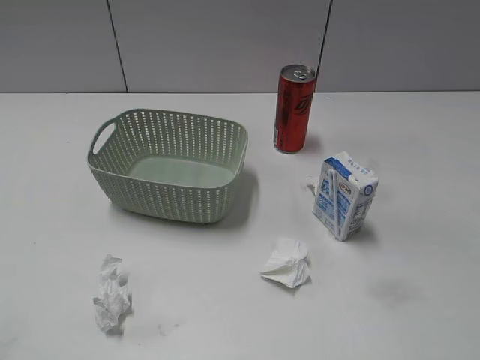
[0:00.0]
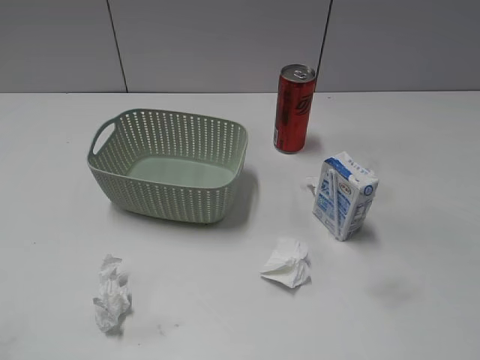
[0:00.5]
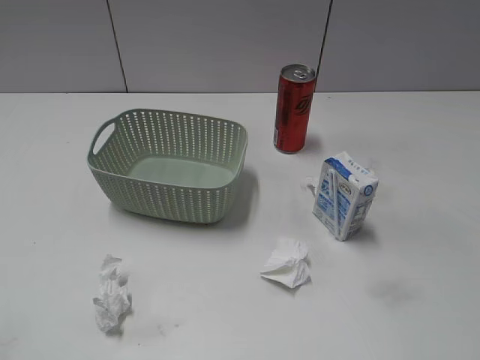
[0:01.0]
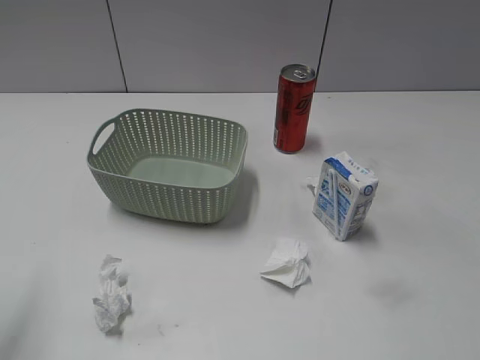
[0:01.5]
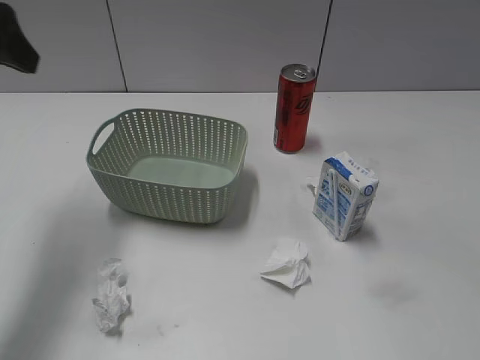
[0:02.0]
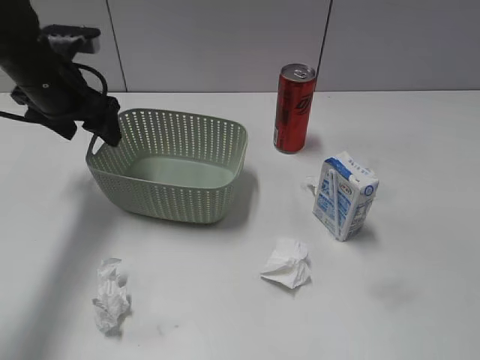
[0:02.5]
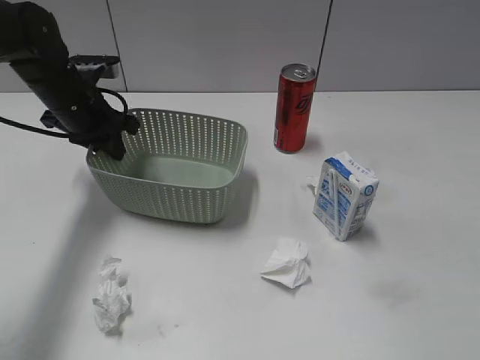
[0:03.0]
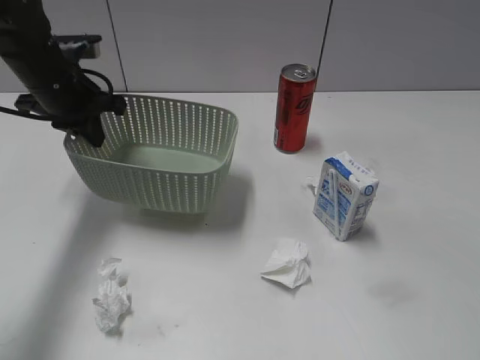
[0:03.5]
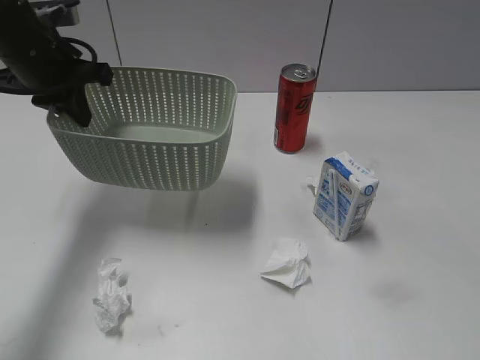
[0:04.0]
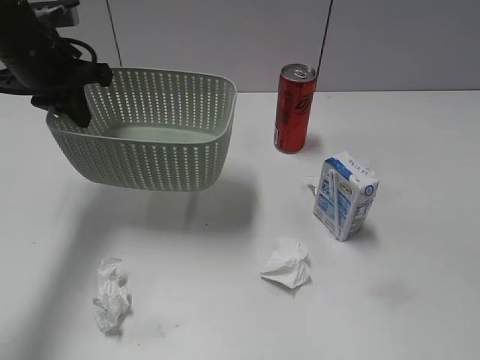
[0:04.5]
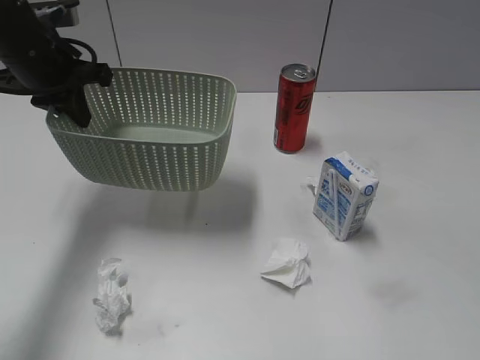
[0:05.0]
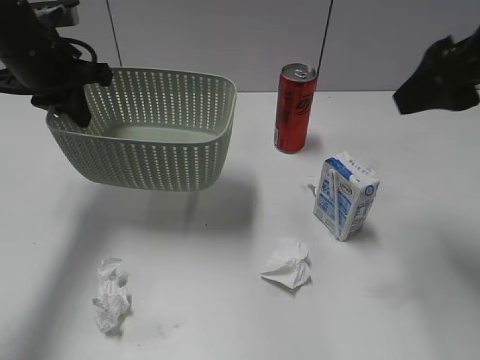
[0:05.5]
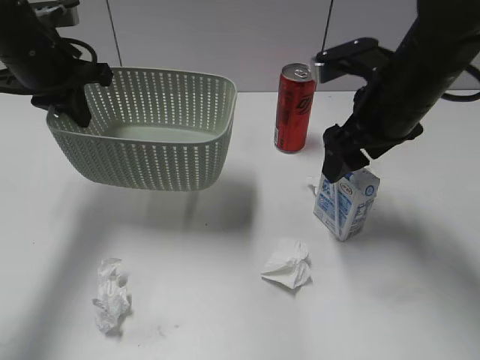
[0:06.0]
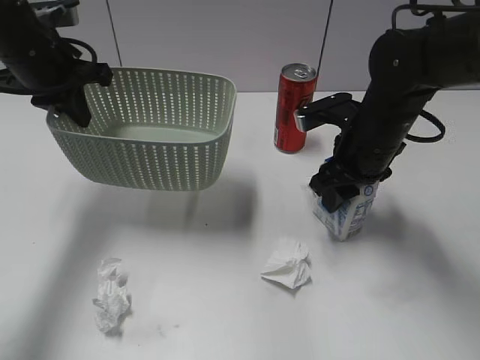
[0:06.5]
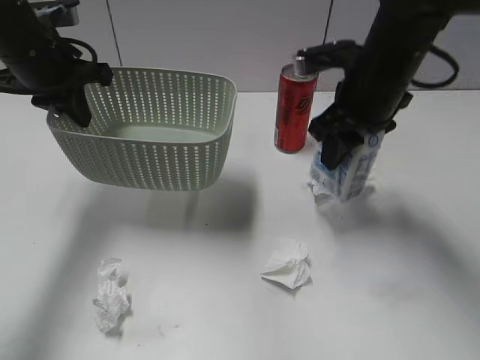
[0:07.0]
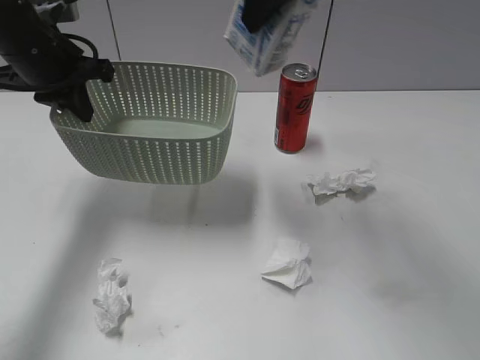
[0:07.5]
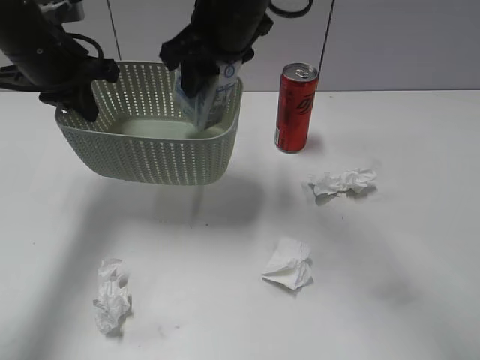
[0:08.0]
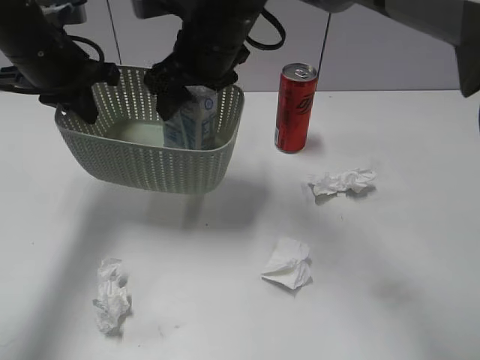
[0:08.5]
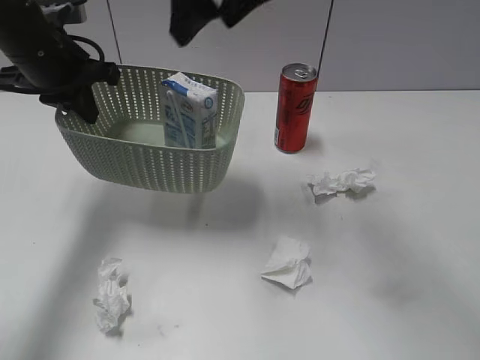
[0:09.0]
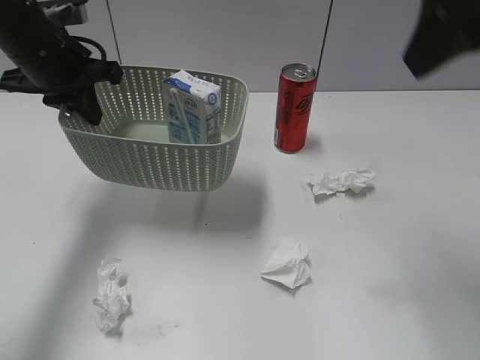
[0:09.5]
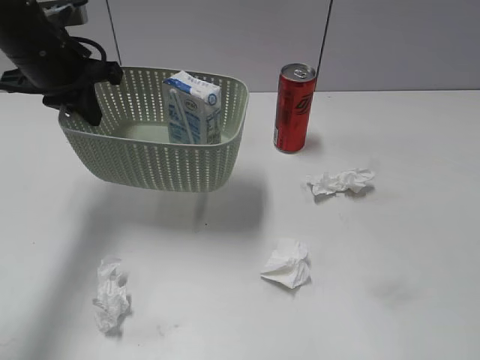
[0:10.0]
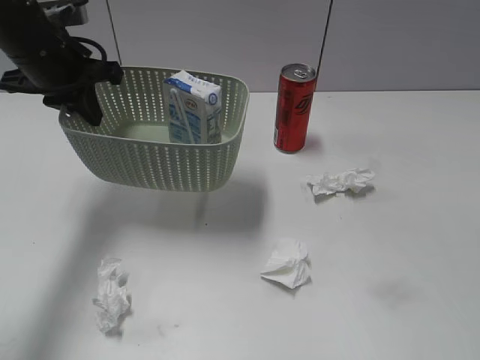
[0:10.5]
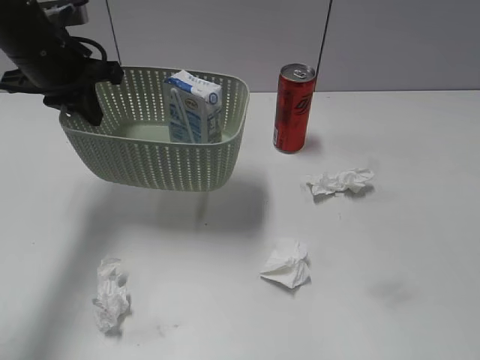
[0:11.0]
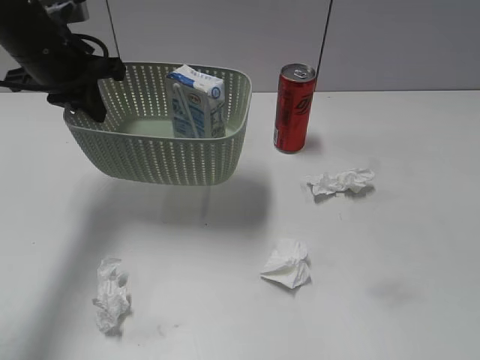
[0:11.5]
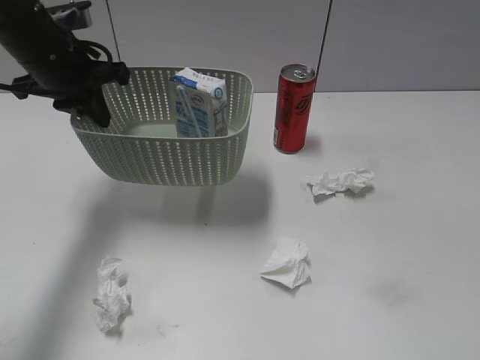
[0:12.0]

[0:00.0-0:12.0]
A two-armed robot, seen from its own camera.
Step, 0:02.0 to 0:03.0: Grasp the basket with left gripper.
Step, 0:04.0 to 0:06.5: Grasp the milk with right gripper.
Step, 0:07.0 to 0:09.0: Place the milk in the basket with right gripper.
0:02.0 to 0:04.0: The left gripper is displaced forward, downward and to the right by approximately 15 cm, and closes up.
0:04.0 to 0:06.0: The right gripper moves forward and to the left, roughly 35 cm.
0:06.0 to 0:08.0: The right gripper moves up and down over some 20 cm, changing direction 2 times, and closes.
0:08.0 to 0:10.0: The right gripper is displaced backward and to the right by approximately 40 cm, and opens up.
0:10.0 to 0:12.0: The right gripper shifts about 10 cm backward and to the right.

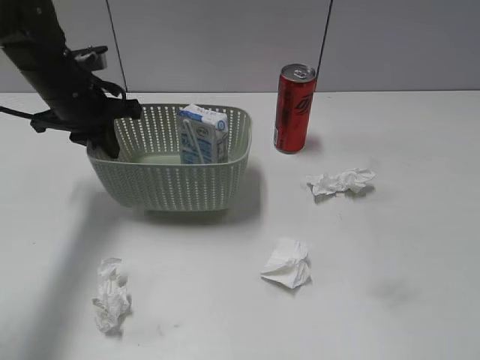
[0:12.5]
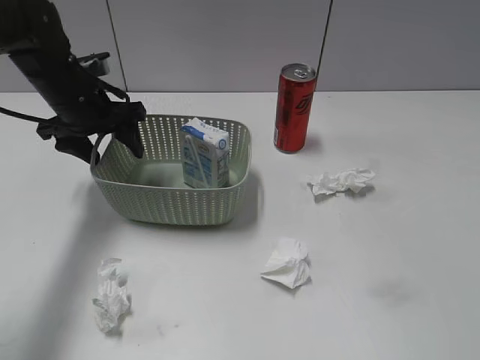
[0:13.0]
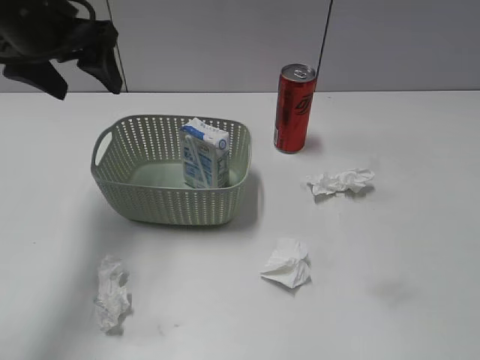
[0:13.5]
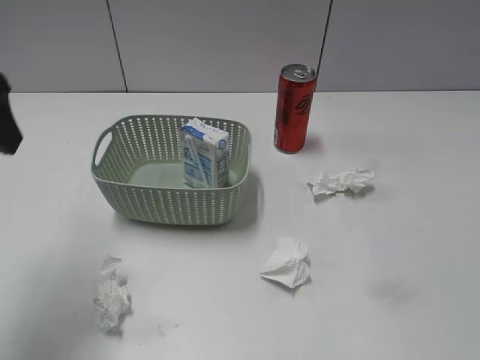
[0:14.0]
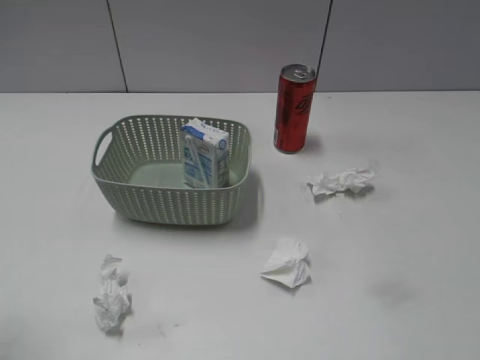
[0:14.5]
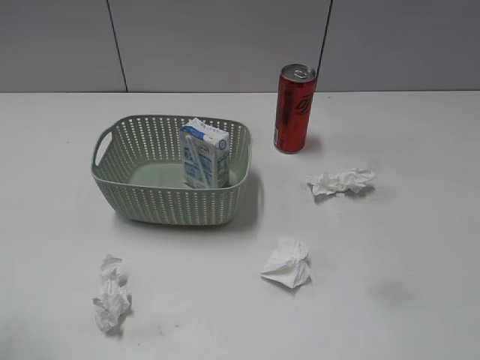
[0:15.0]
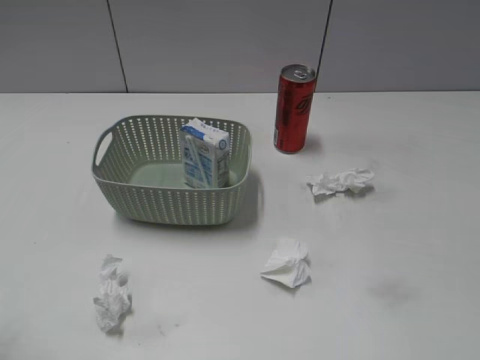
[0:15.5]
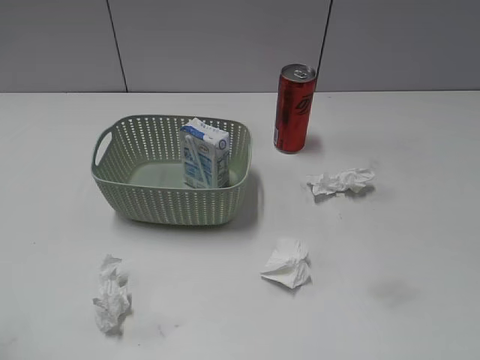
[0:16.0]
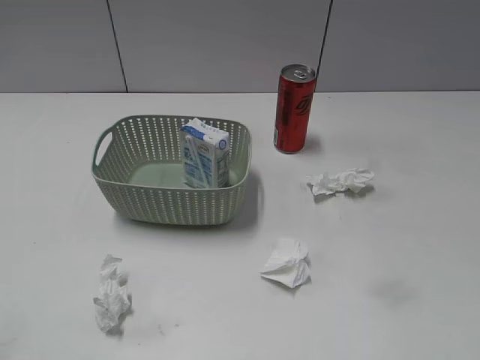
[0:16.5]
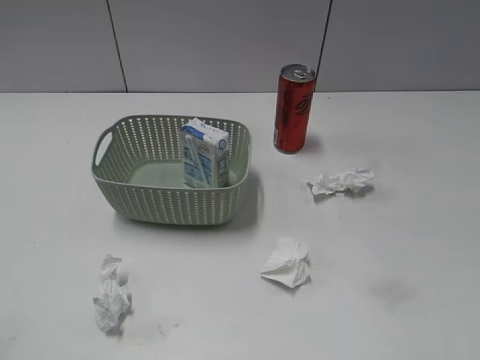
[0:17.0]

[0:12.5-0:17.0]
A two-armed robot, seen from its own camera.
0:12.5 to 0:14.5: The left gripper moves backward, roughly 30 cm, and opens up.

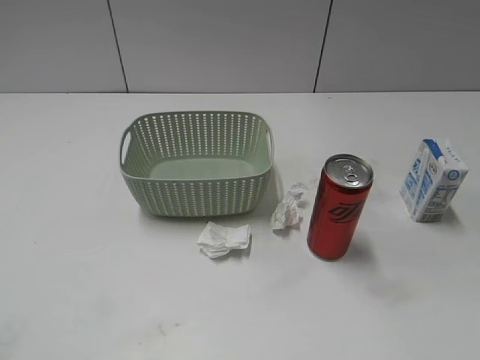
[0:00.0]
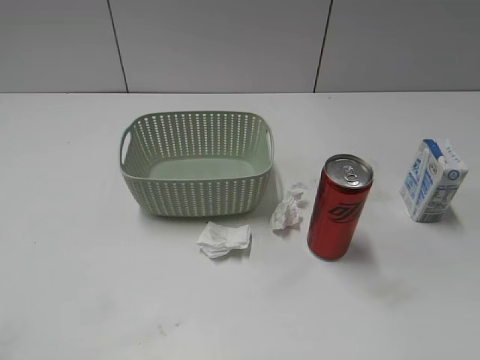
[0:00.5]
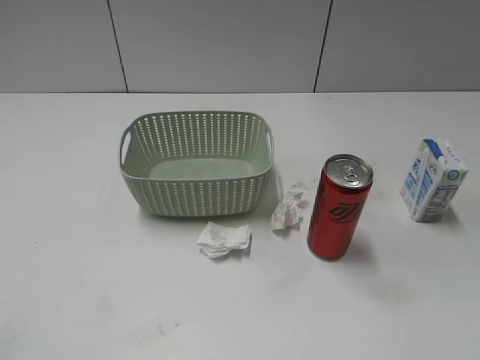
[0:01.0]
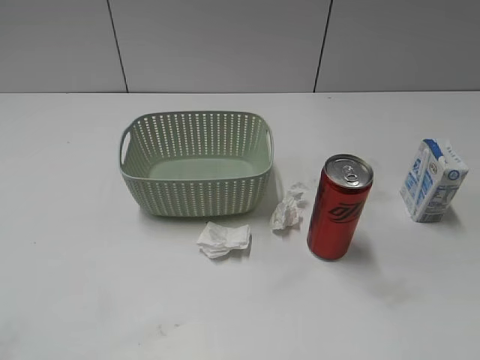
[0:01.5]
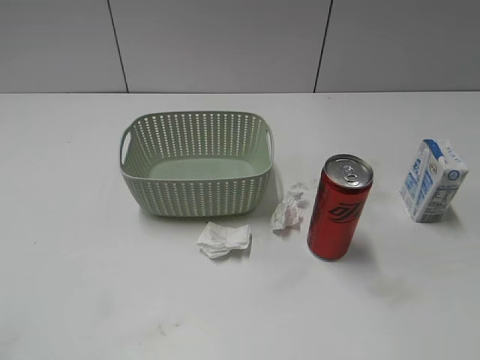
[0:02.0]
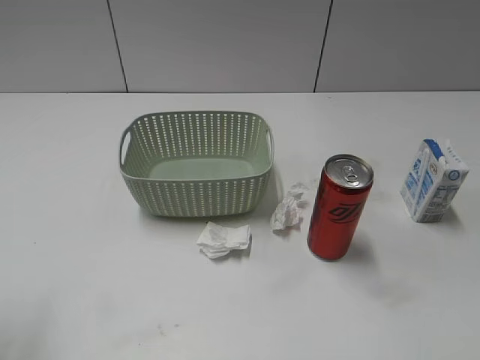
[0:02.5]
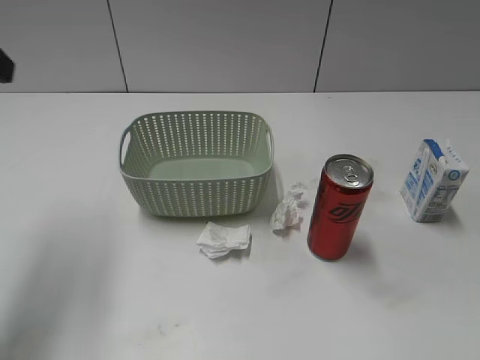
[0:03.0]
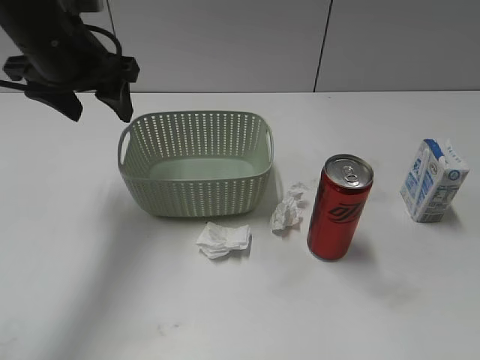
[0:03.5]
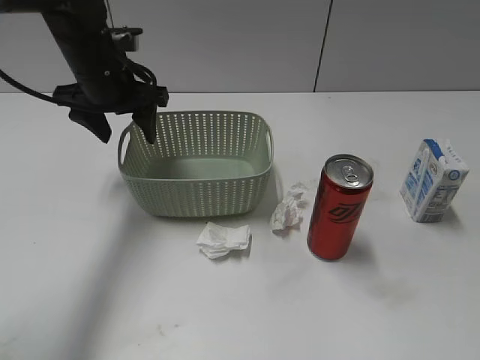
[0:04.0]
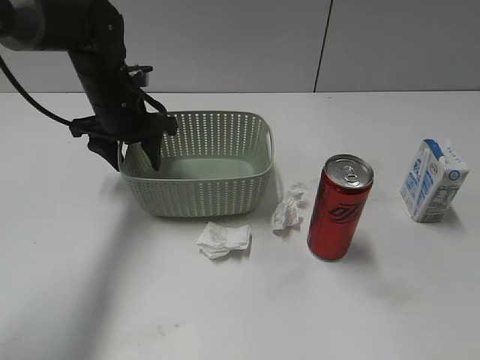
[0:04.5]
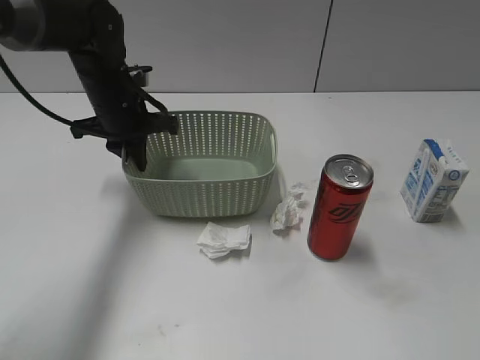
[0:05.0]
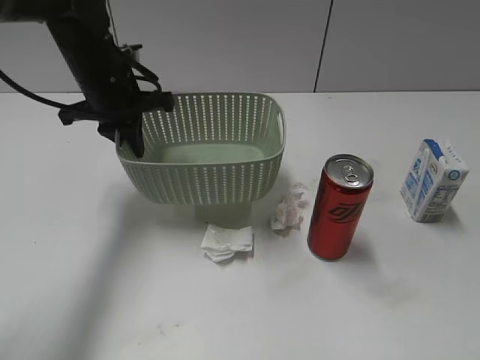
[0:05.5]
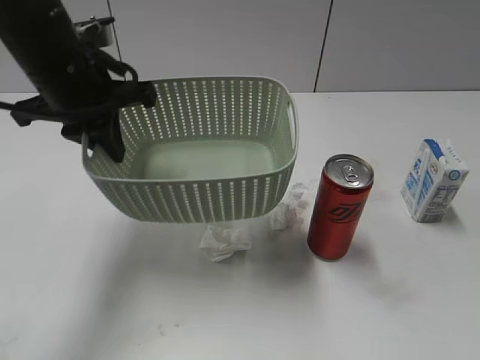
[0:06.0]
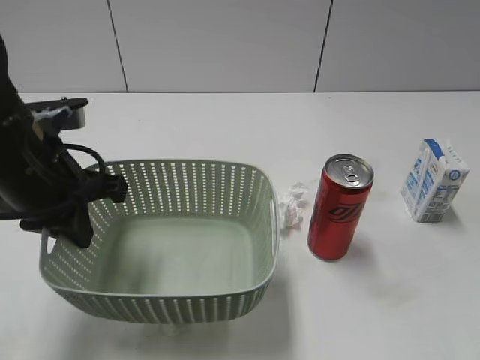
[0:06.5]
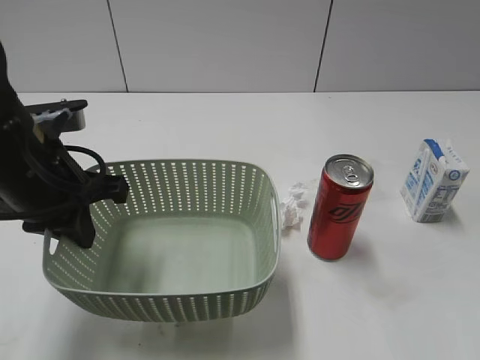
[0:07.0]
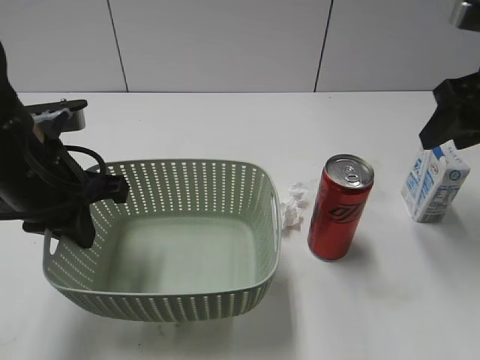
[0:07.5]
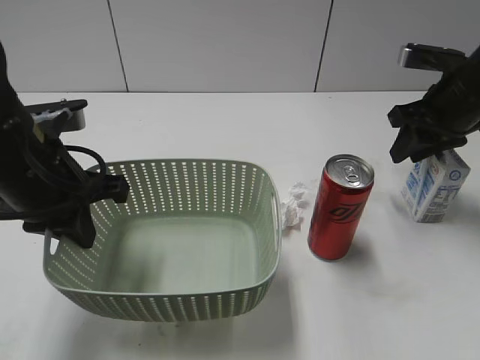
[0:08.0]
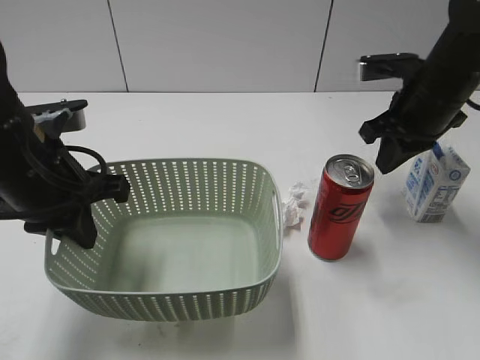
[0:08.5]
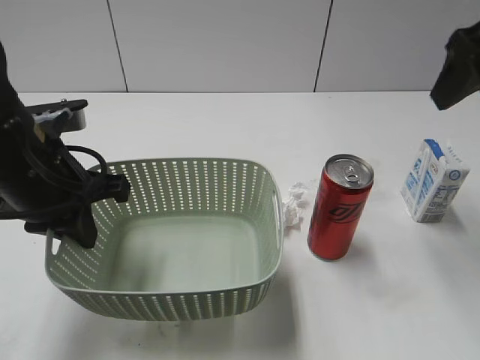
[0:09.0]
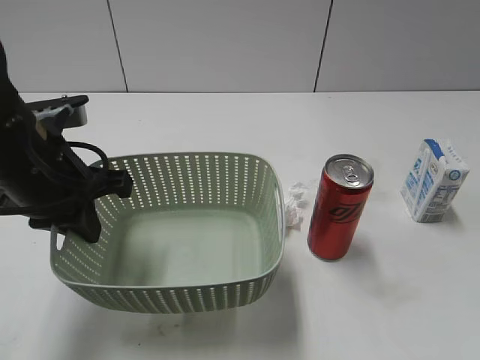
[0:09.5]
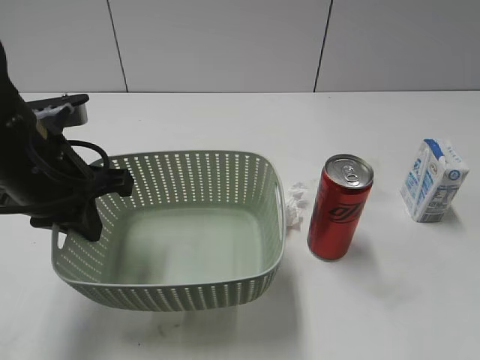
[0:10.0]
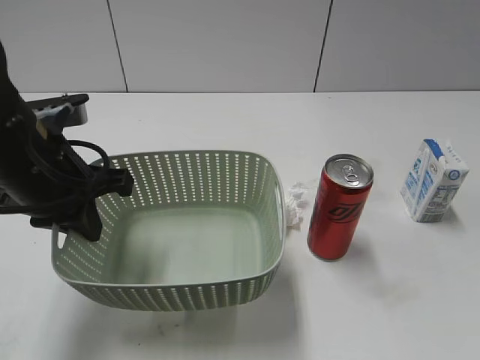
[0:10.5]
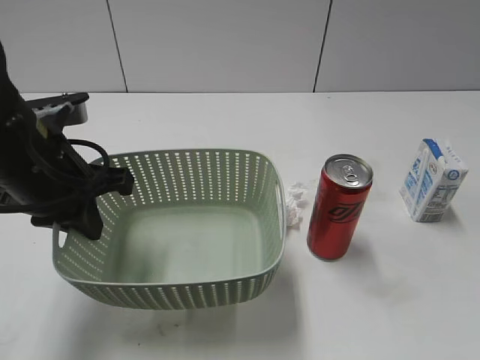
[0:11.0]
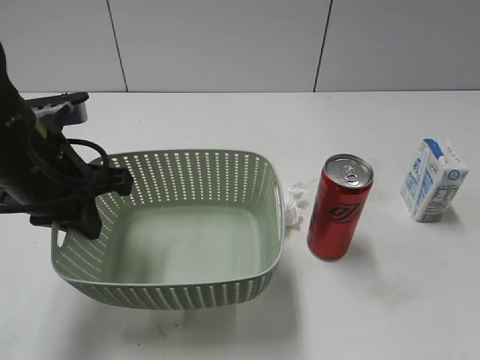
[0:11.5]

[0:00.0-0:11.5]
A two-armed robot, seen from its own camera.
Step, 0:03.0 to 0:05.0: Grasp the basket with left gripper.
Step, 0:05.5 to 0:07.0: Lift the basket with left gripper.
0:02.0 to 0:04.0: The left gripper is displaced forward by about 40 cm.
0:04.0 to 0:06.0: The left gripper goes some 10 cm backward, and closes its fingers.
0:06.0 to 0:07.5: The left gripper shifts about 10 cm backward, while the right gripper goes roughly 30 cm forward.
0:07.5 to 0:09.5: The right gripper shifts some 15 cm backward and upward, and closes, then reopens.
0:09.5 to 0:11.5: The right gripper shifts roughly 20 cm backward and downward.
